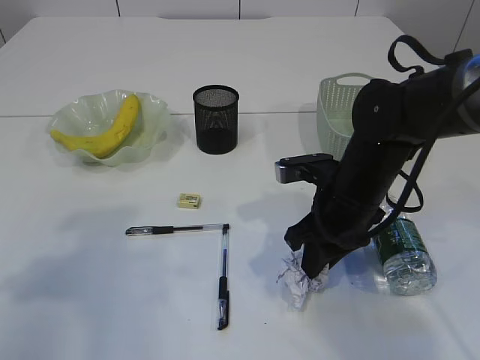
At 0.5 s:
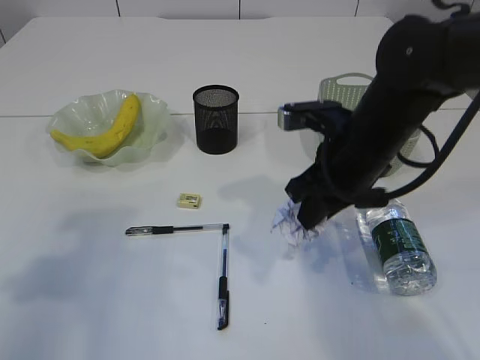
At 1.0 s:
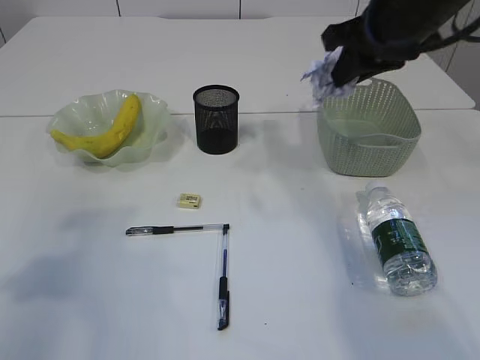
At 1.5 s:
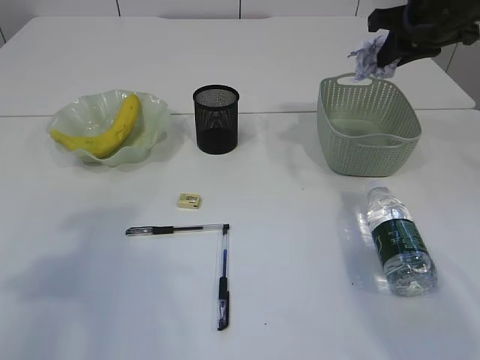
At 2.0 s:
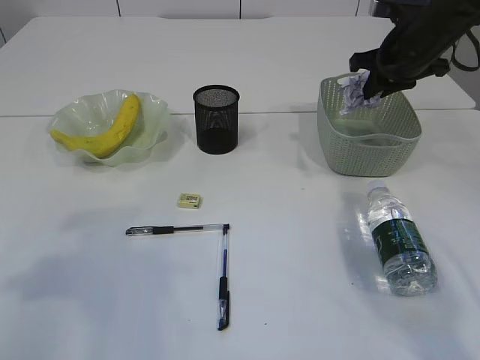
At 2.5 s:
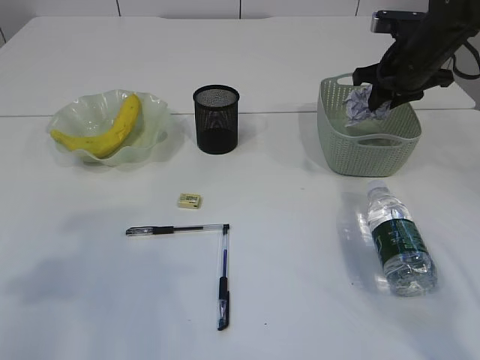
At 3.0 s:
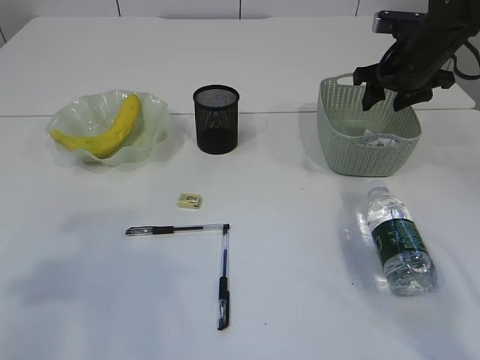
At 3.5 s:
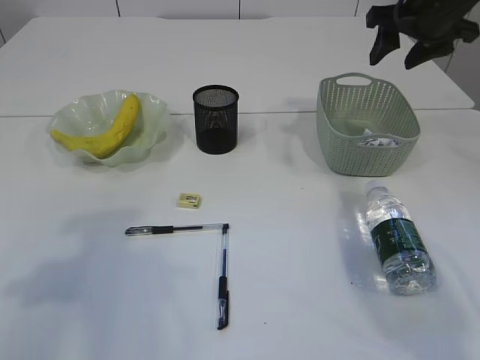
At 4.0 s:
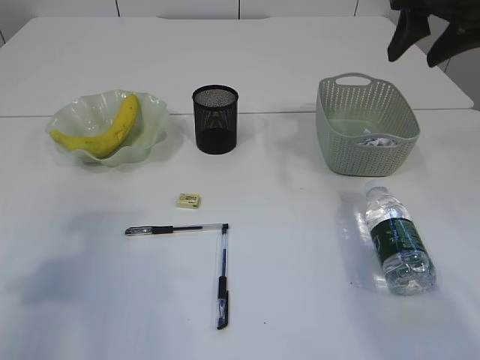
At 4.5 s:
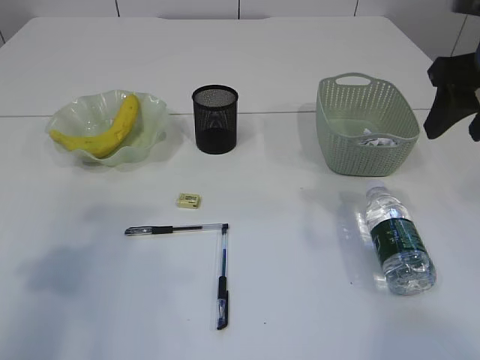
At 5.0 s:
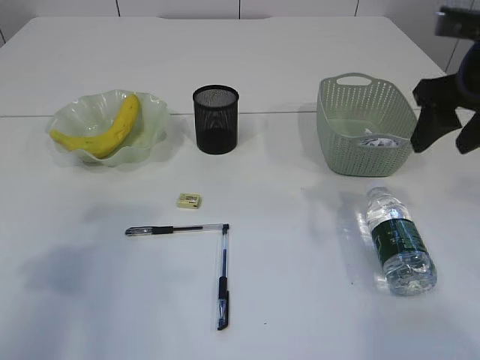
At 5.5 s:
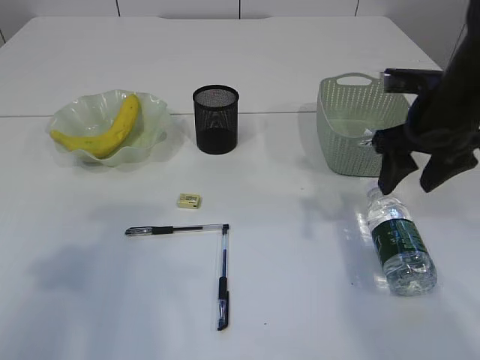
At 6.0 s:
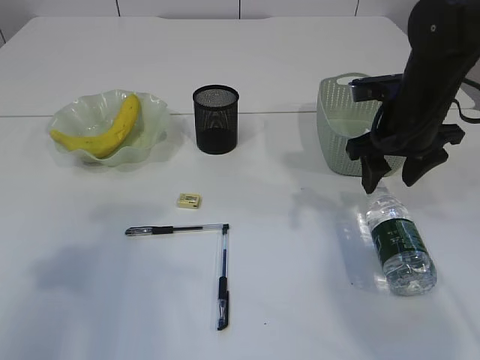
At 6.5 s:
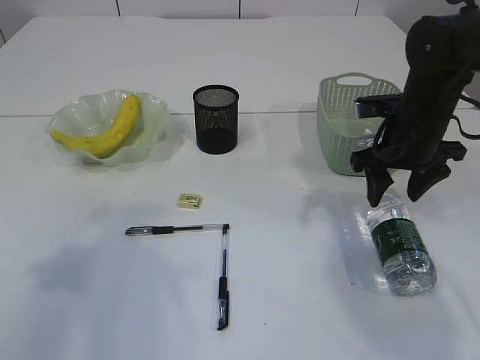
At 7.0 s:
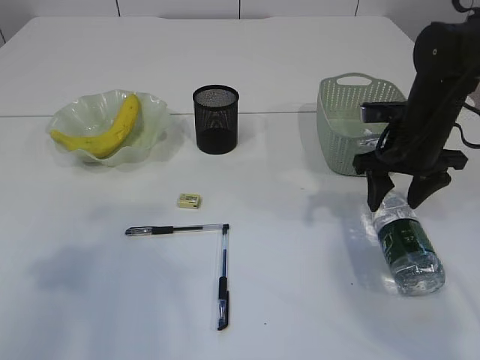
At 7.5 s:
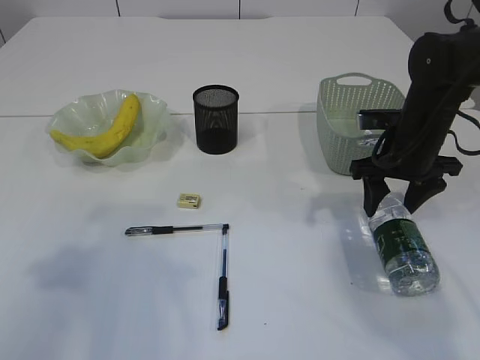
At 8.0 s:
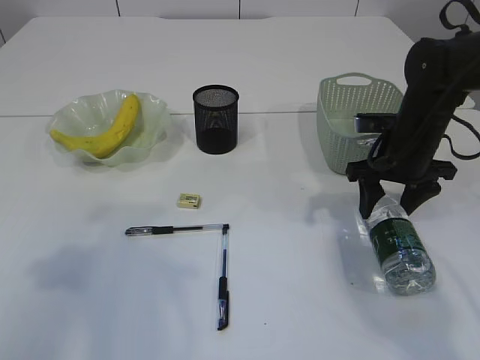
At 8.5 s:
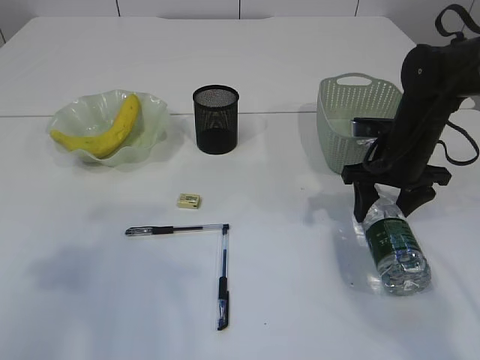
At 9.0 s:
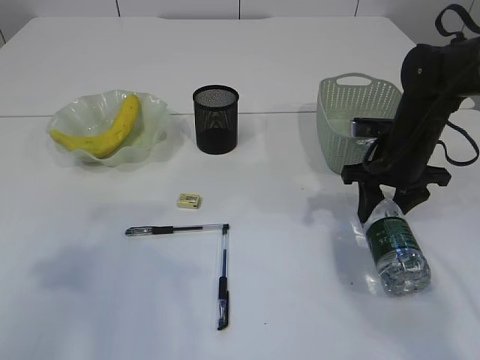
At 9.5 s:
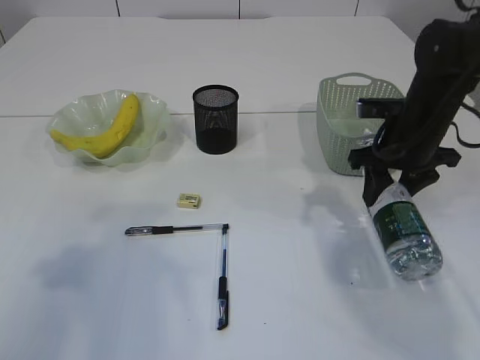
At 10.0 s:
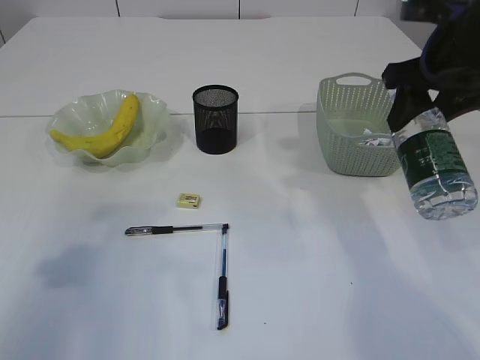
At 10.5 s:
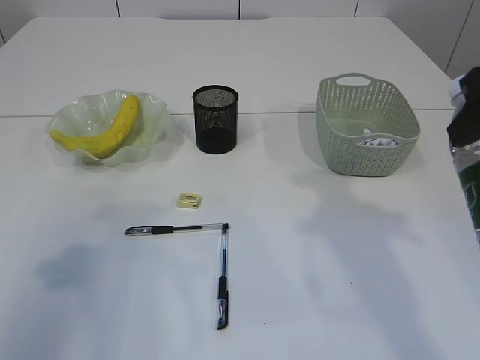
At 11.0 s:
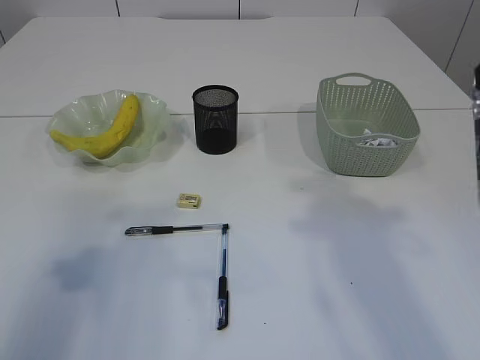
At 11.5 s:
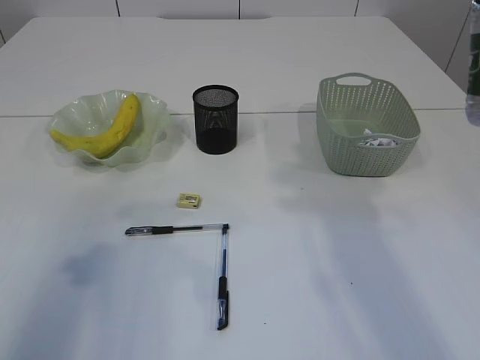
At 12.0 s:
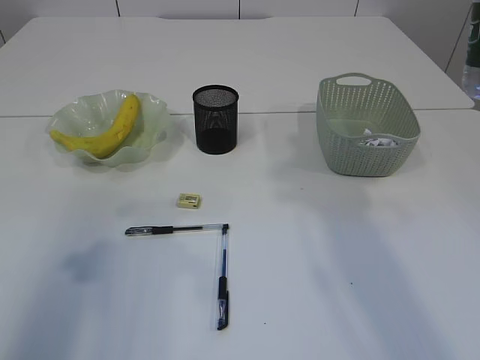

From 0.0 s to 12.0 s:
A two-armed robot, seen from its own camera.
Step, from 1.0 s to 3.0 s: Place the waste paper in the basket.
Step, from 3.5 s to 9.5 s: Pick up the bottle with the right arm.
From 0.0 s to 2.0 s: The right gripper shifts some 25 cm forward, to the right and upward.
From 2.0 s to 4.0 s: The right gripper is displaced upward and backward by approximately 15 cm, and opens up.
From 4.0 s to 6.0 s: The right gripper moves downward, about 15 cm.
From 6.0 s to 8.0 s: The right gripper goes some 5 cm downward.
From 8.0 s to 10.0 s: The right gripper travels upward by approximately 15 cm.
From 10.0 s to 12.0 s: The right gripper heads backward and upward, covering roughly 15 cm.

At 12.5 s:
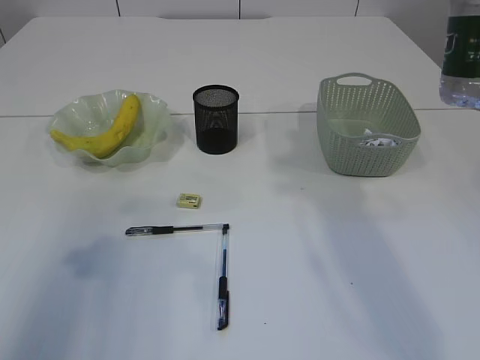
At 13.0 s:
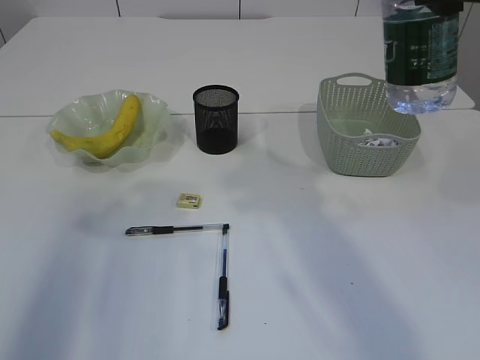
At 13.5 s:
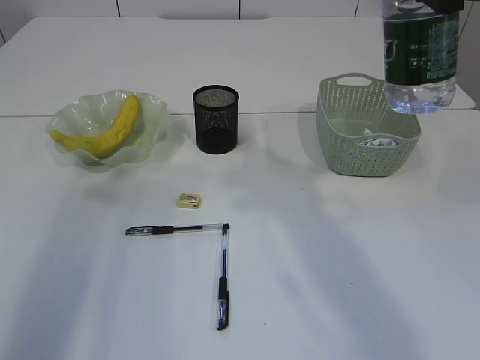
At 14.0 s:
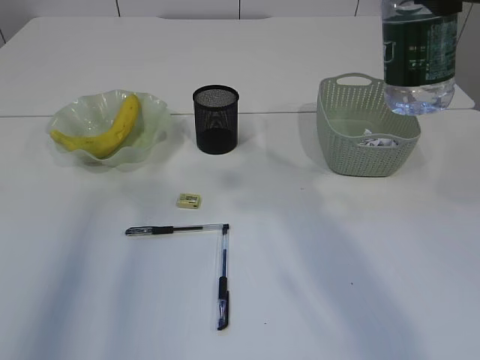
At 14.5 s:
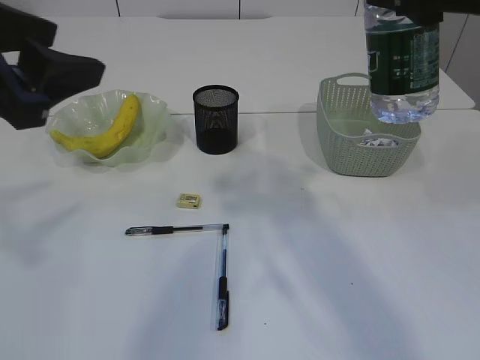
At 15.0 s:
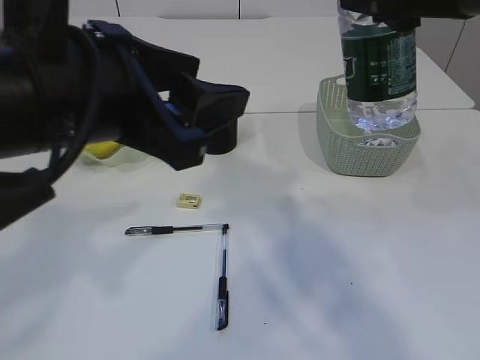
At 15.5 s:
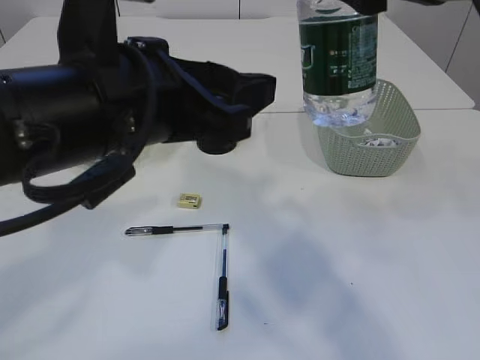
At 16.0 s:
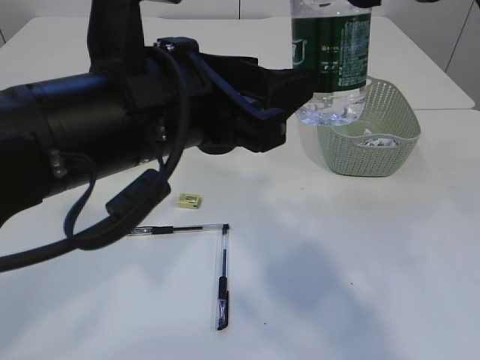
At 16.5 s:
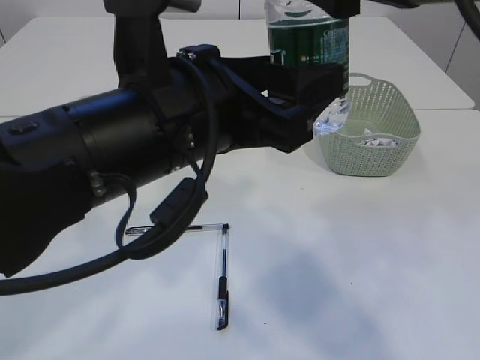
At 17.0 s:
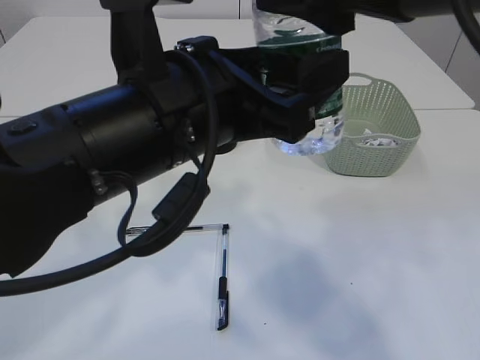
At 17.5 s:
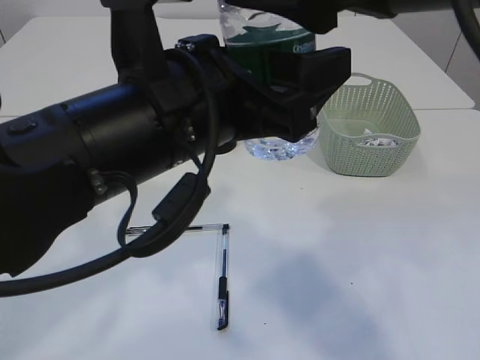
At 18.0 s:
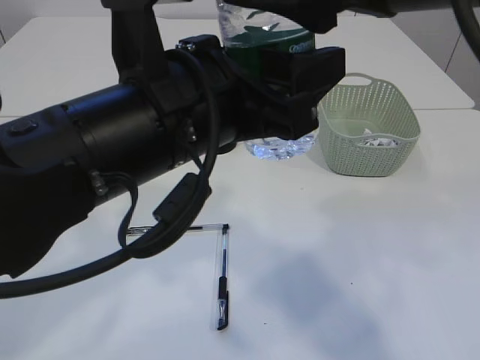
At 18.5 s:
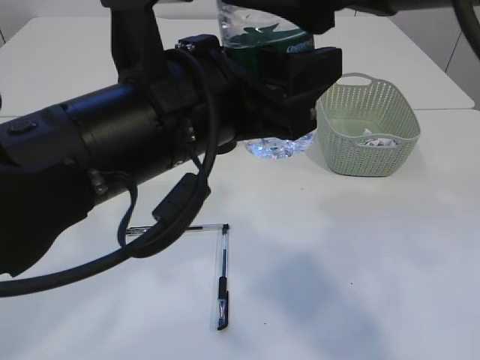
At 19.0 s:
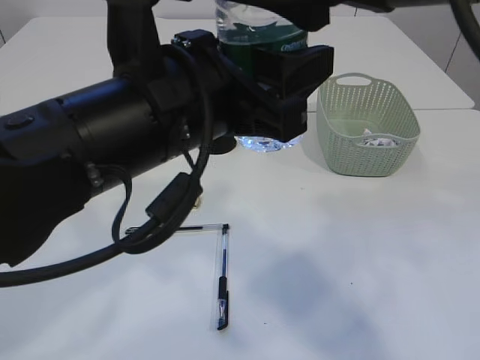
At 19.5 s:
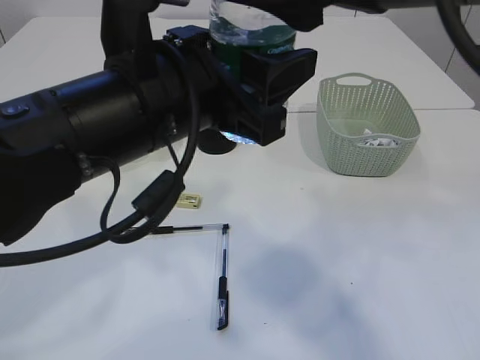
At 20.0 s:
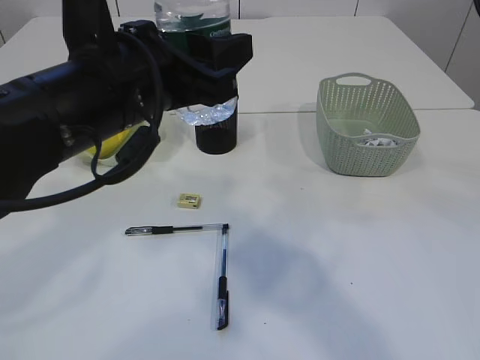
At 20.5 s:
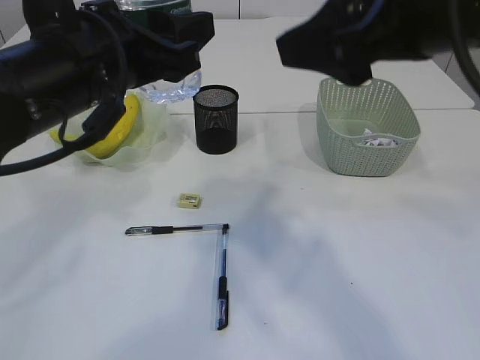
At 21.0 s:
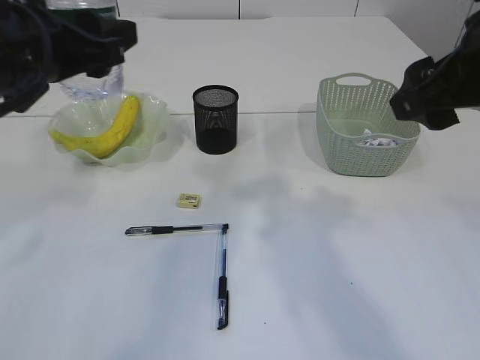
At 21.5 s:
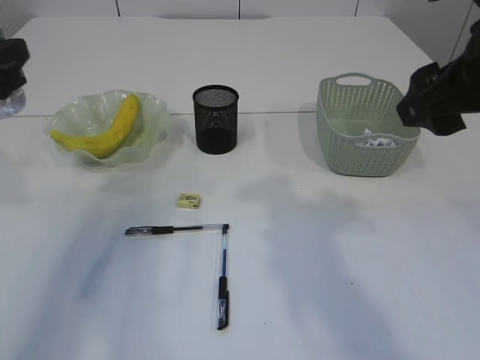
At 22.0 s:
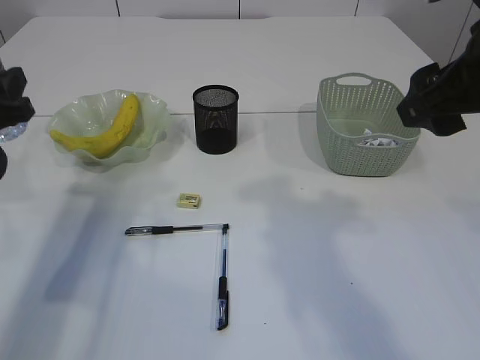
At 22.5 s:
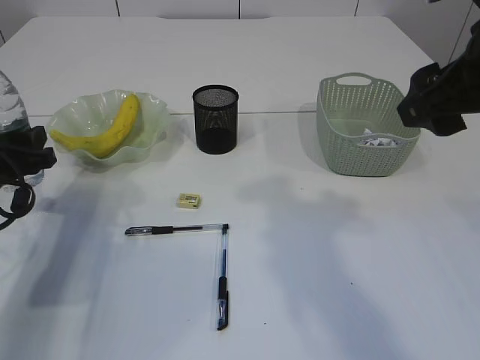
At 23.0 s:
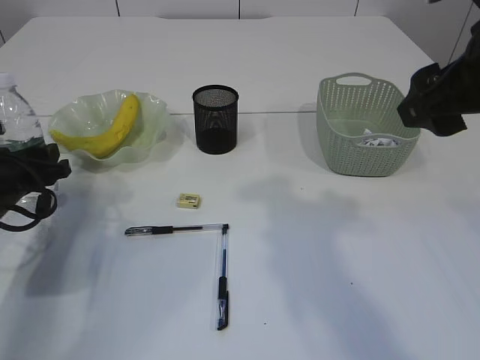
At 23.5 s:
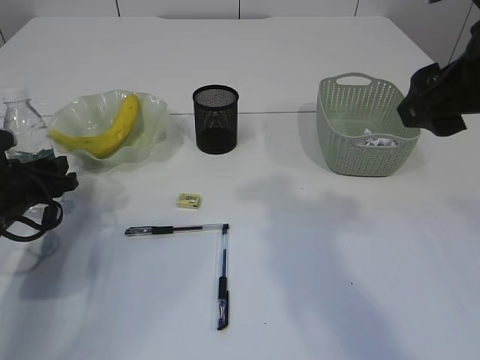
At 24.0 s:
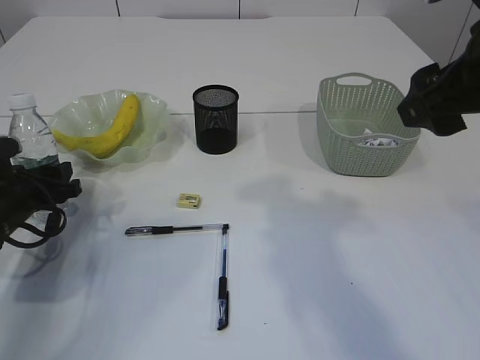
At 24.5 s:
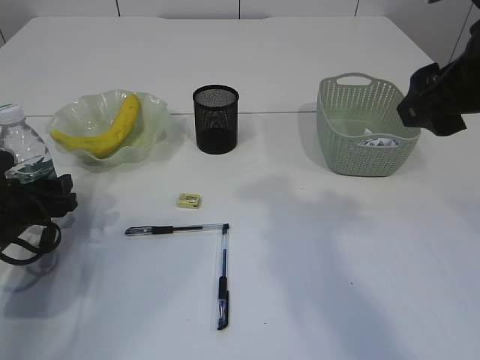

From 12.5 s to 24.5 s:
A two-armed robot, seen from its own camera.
Step, from 12.5 s to 20.0 s: transfer the bottle to the left arm.
From 12.5 s to 14.5 s: The right gripper travels to the left by about 5 cm. Meanwhile the left gripper moves to the right, approximately 10 cm.
From 14.5 s to 16.5 s: The right gripper goes roughly 5 cm to the left. Meanwhile the left gripper is displaced to the right by roughly 15 cm.
From 16.5 s to 18.5 s: The grippers stay close to where they were, moving slightly.
From 18.5 s to 20.5 s: The left gripper travels to the left and forward by approximately 10 cm.
From 20.5 s to 22.5 s: The right gripper travels to the right by about 5 cm; the left gripper heads to the left and downward, covering about 25 cm.
From 22.5 s to 24.5 s: The left gripper moves downward, some 10 cm.

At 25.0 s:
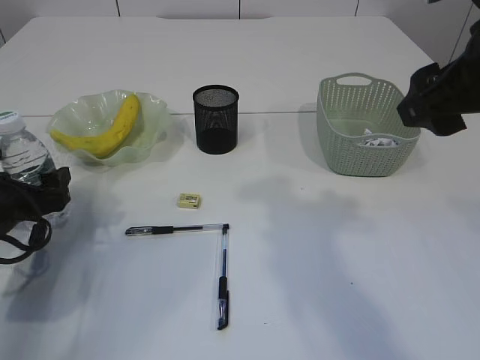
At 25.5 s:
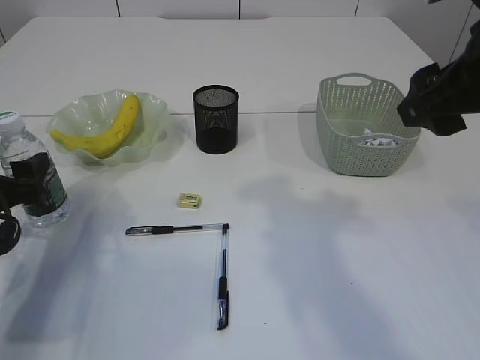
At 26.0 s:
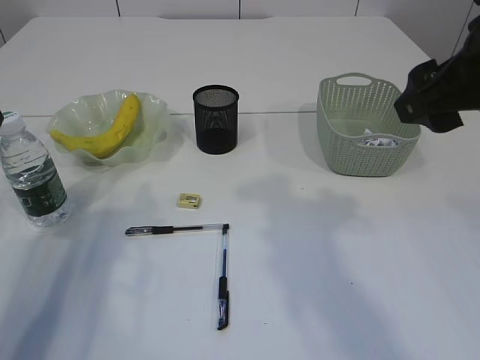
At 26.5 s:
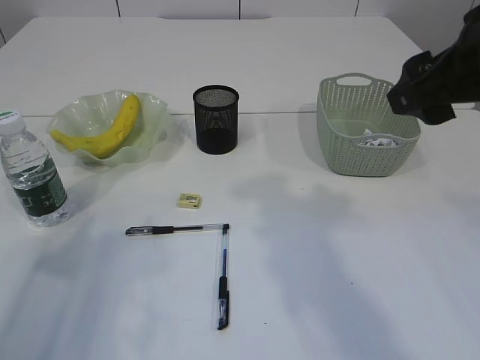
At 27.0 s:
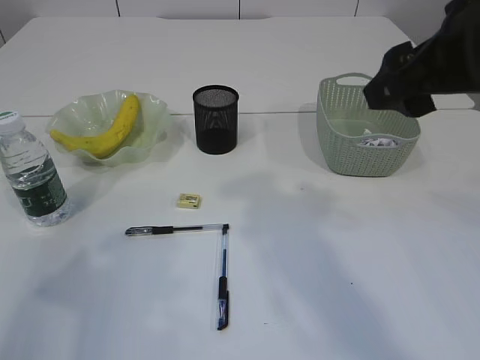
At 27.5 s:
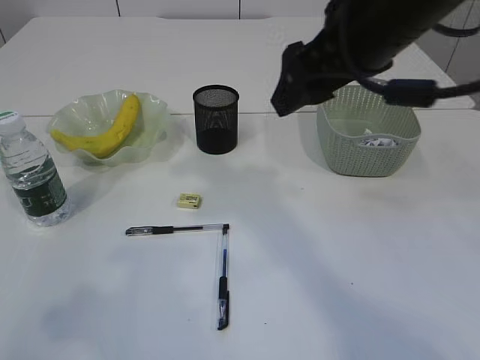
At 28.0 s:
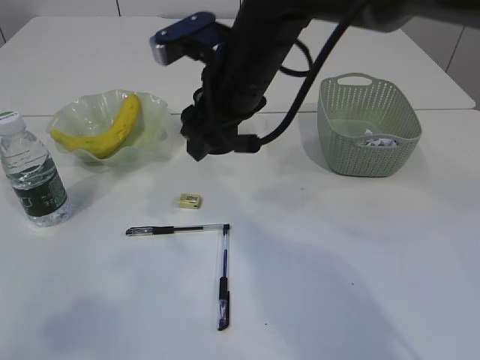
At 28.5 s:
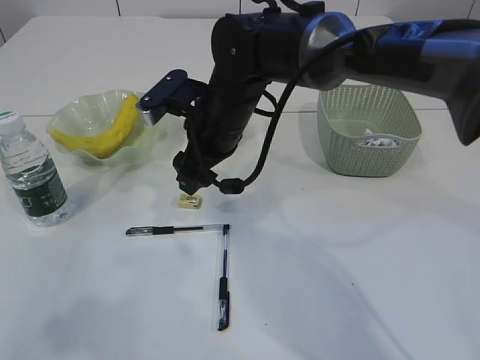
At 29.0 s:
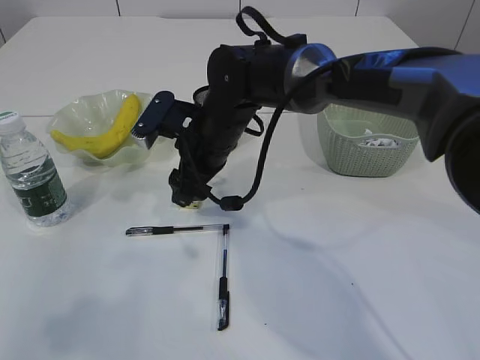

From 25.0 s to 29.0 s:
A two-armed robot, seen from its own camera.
From 25.0 s to 27.0 s: The left gripper heads upward and backward, covering some 30 cm.
From 27.0 s to 29.0 s: The left gripper shifts by approximately 5 cm; the right gripper goes approximately 30 cm to the left, downward and forward.
